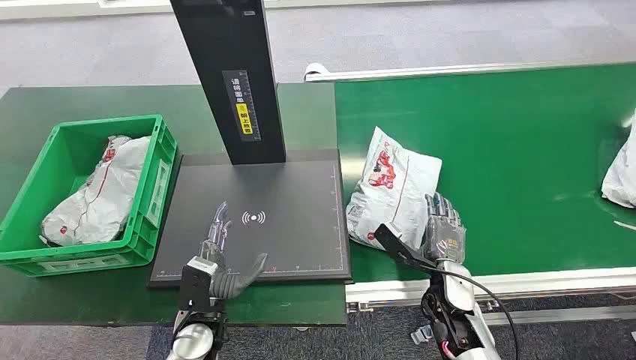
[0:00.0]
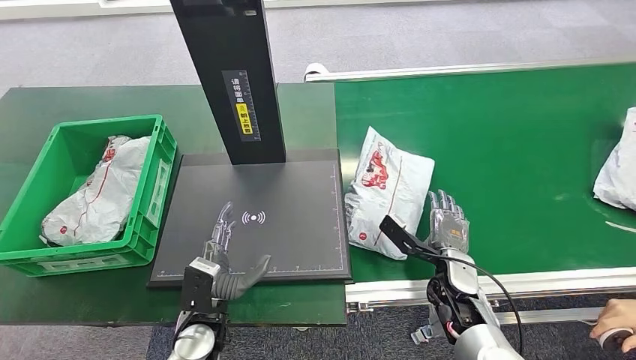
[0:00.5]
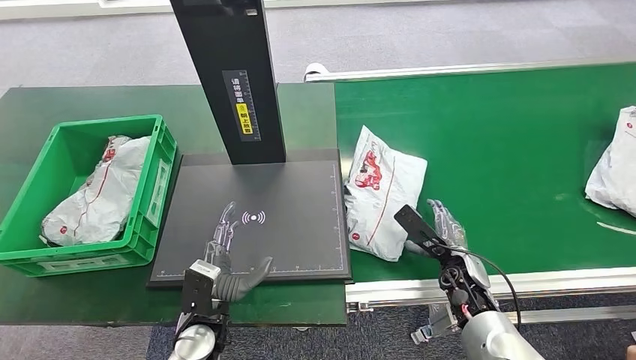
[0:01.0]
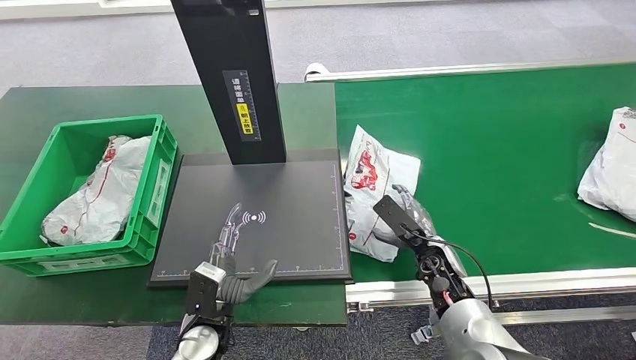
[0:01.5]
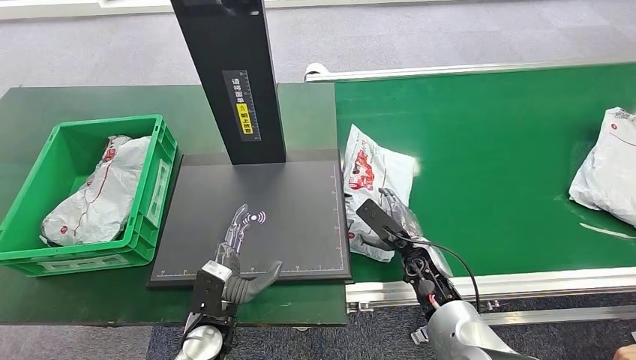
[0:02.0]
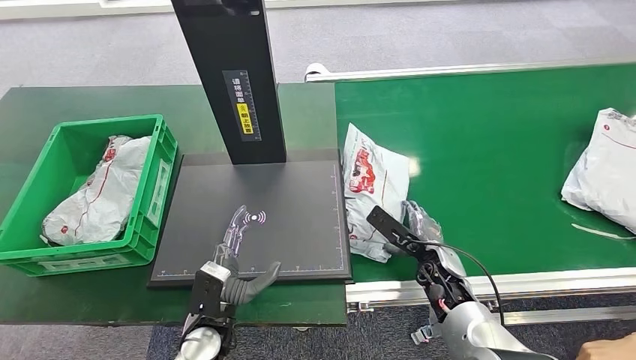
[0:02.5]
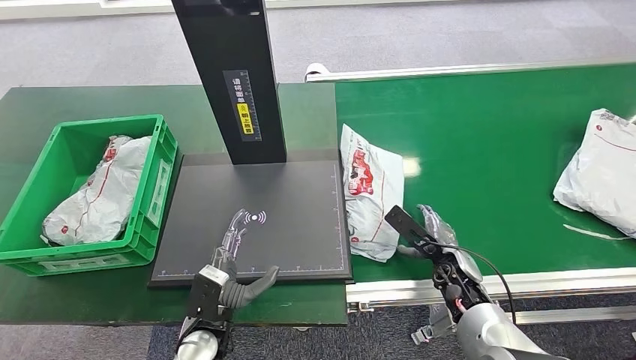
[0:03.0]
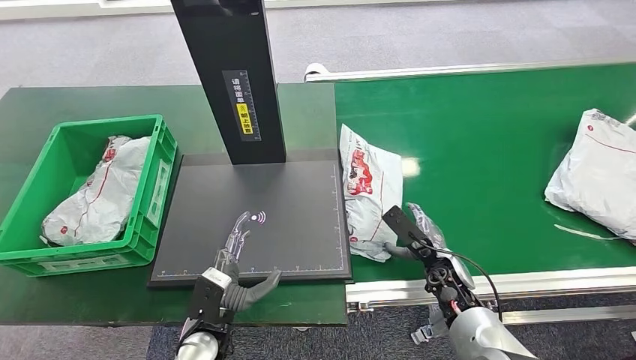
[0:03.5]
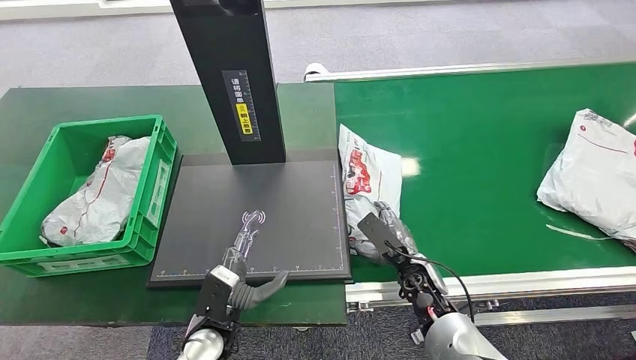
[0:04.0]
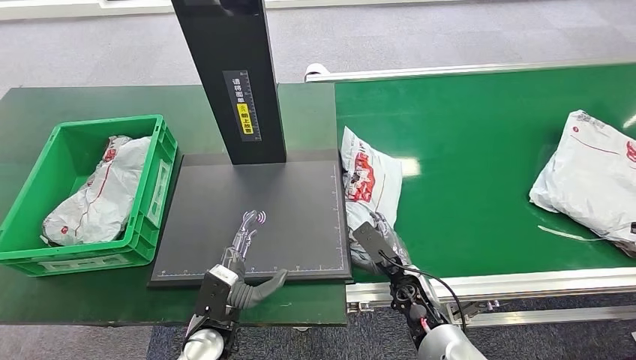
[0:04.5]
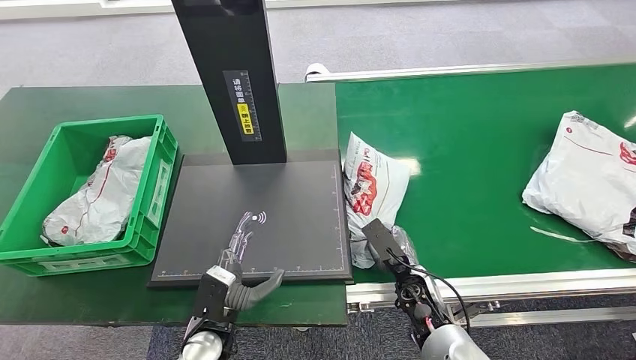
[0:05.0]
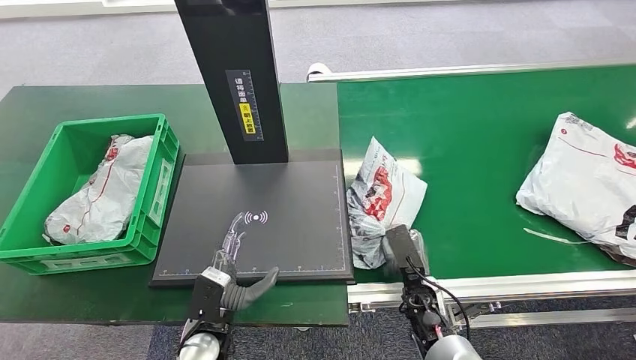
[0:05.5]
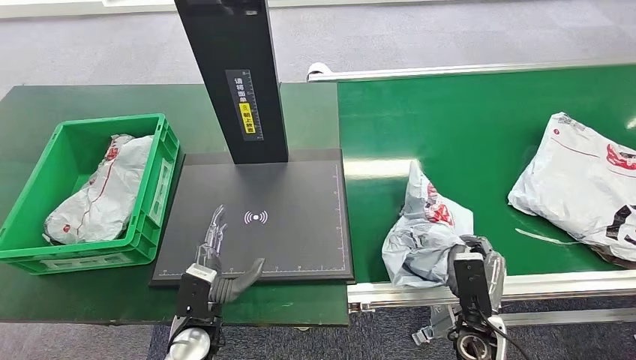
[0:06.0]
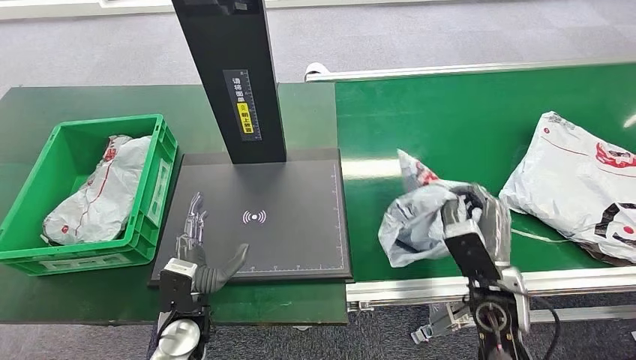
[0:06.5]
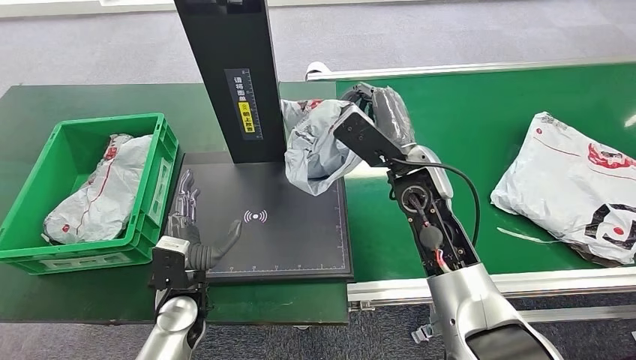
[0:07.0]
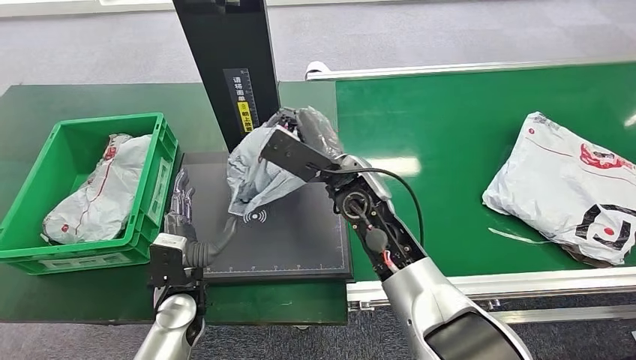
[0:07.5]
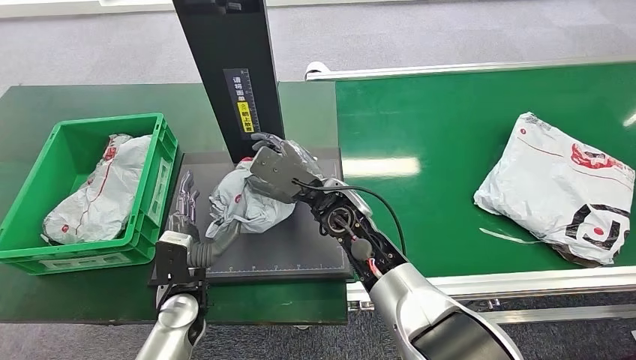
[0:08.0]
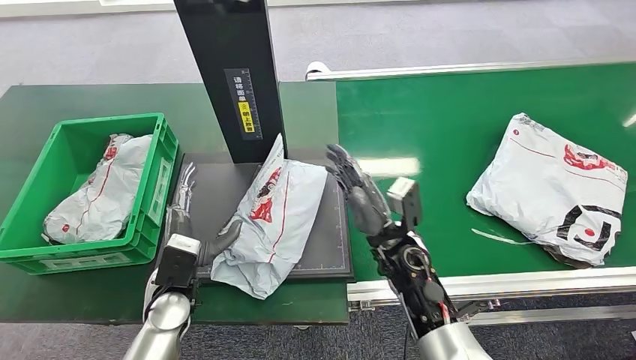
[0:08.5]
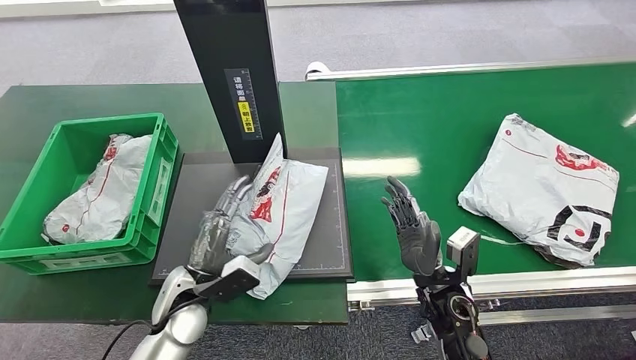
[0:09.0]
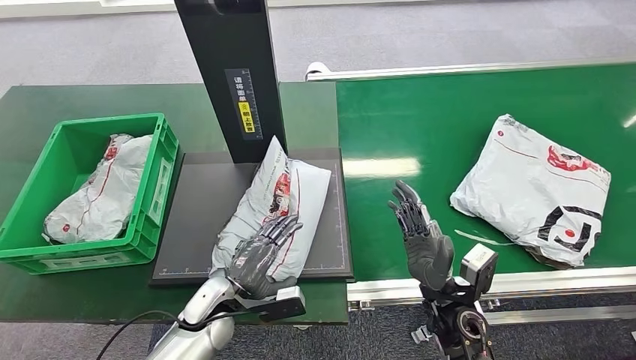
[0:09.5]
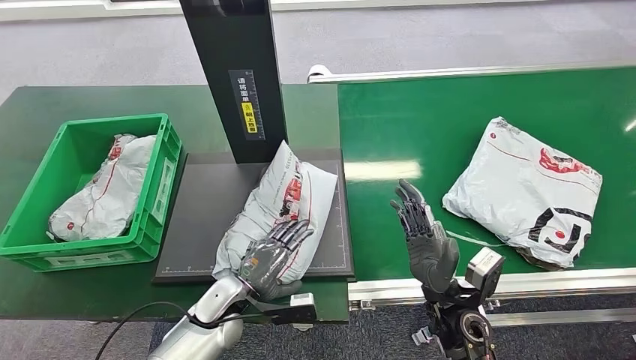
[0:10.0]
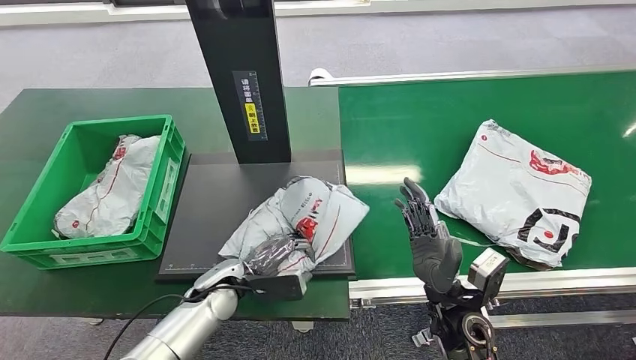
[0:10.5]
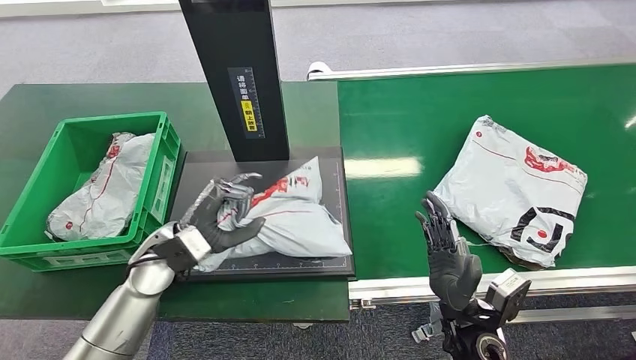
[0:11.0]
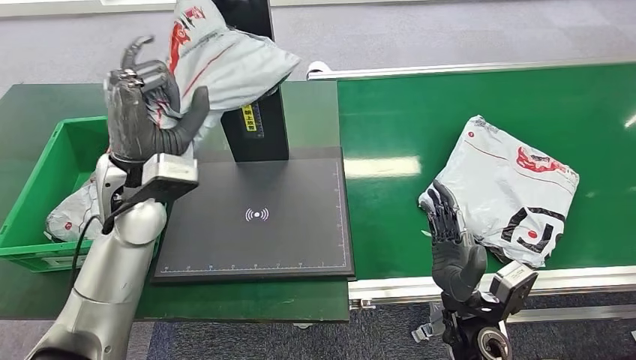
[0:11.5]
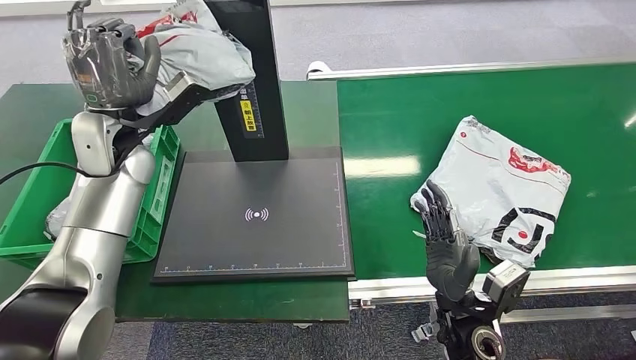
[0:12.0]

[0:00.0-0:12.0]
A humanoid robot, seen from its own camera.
Step, 0:00.0 to 0:06.5: Pick up the package from the conveyor belt.
Step, 0:07.0 to 0:08.5: Place the package onto the inbound machine.
Step, 0:09.0 to 0:11.5: Pick up the package from the inbound machine.

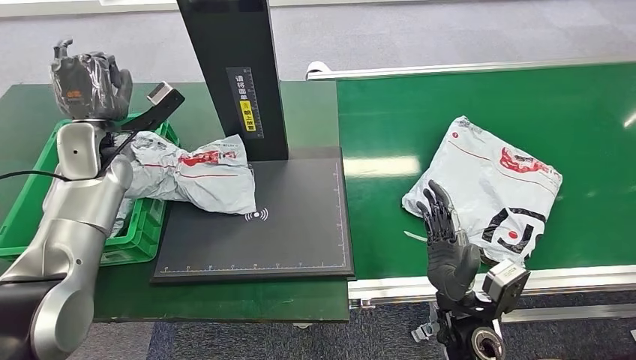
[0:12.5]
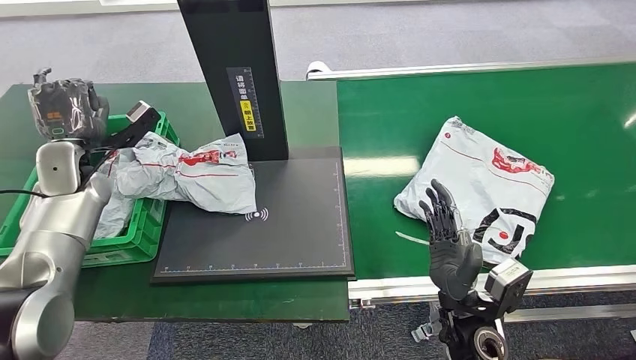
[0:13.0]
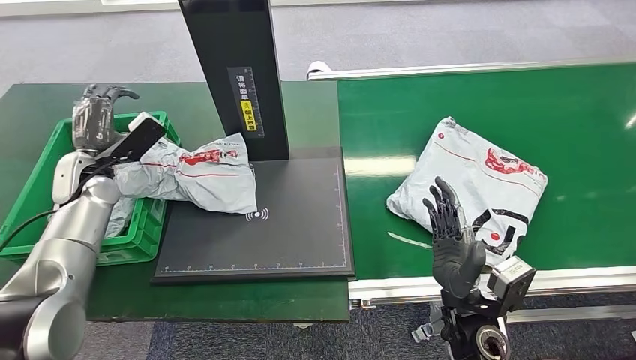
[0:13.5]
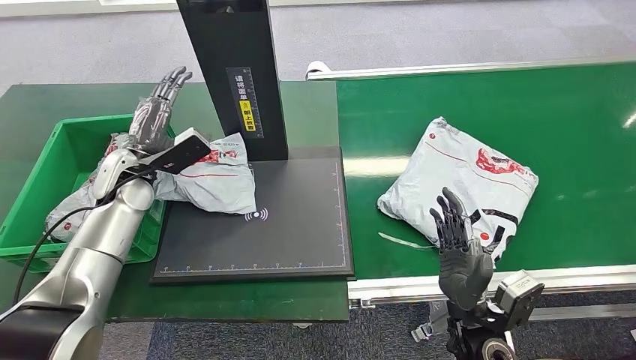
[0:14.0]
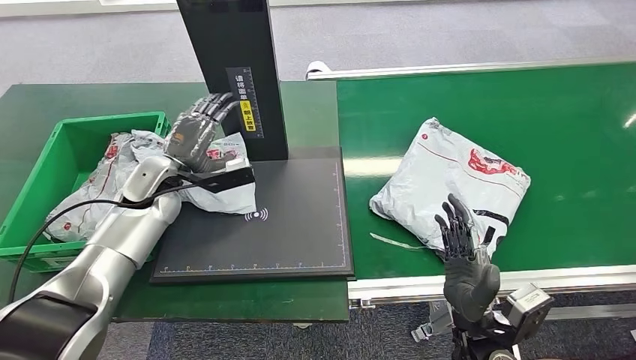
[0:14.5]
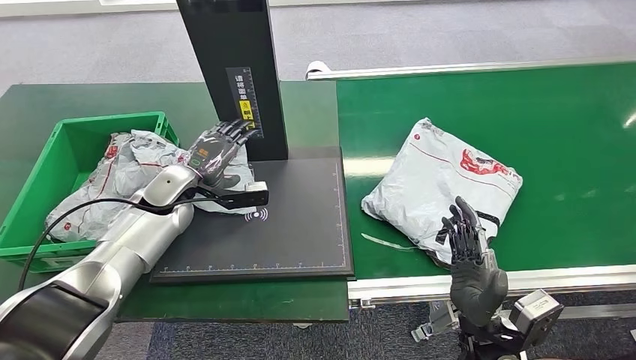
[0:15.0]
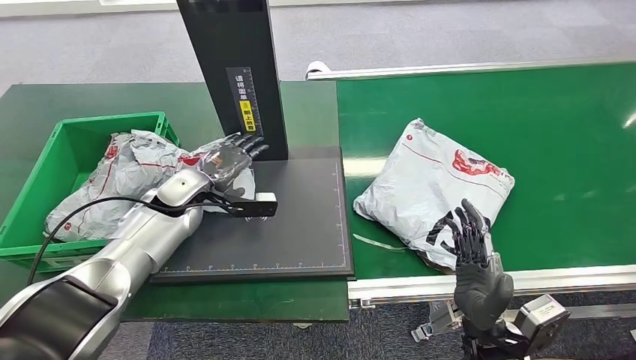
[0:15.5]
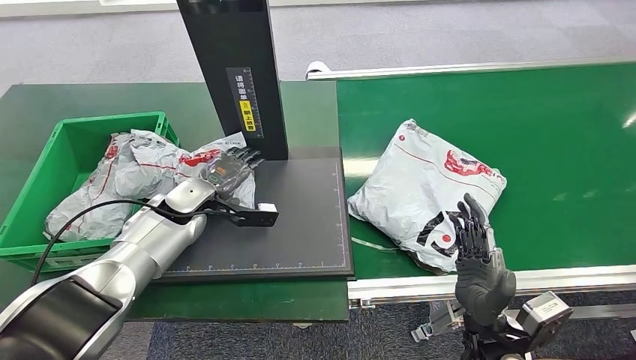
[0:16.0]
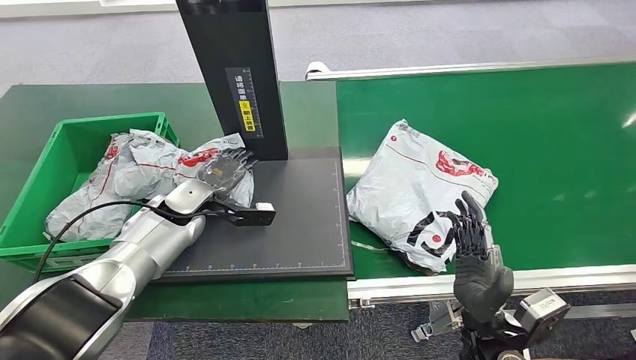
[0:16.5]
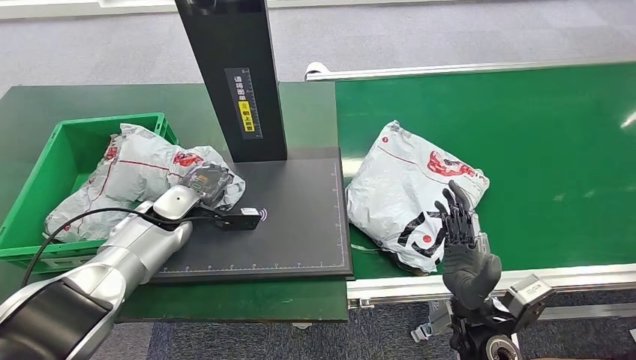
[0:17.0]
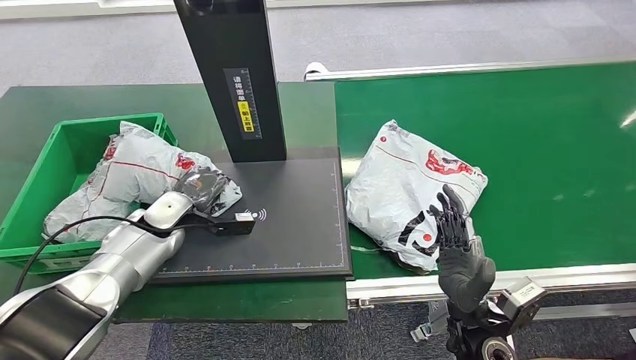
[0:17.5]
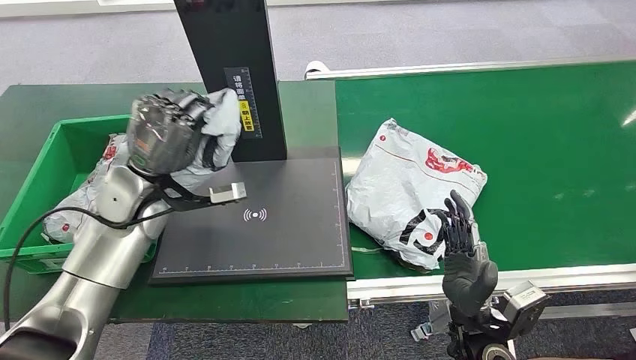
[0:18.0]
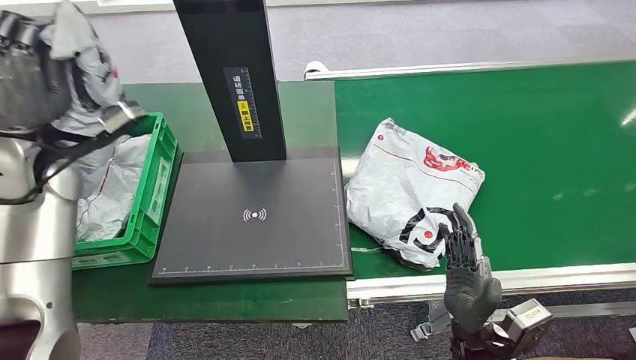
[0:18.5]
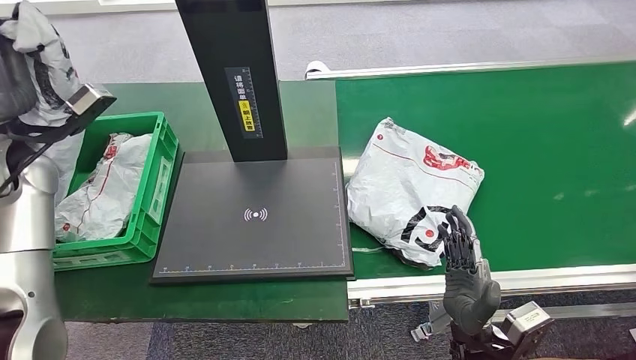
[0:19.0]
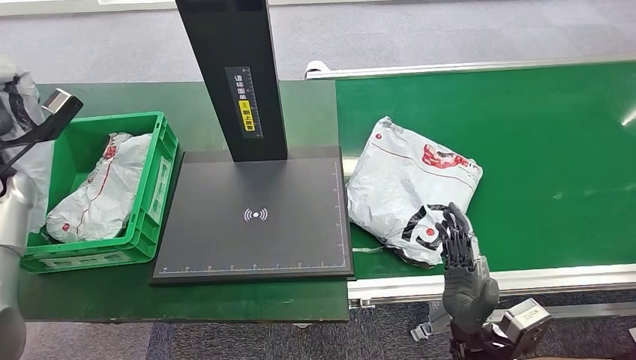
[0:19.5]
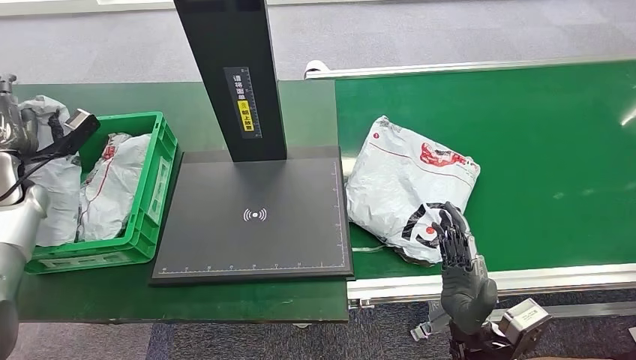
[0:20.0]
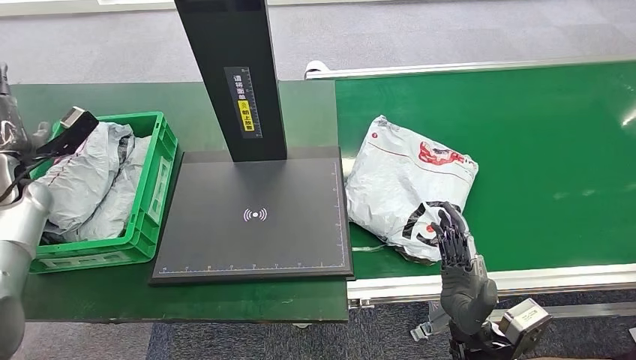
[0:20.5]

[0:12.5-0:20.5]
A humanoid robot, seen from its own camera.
Step, 0:12.5 to 0:20.5: Place the package into the parcel locker.
0:14.5 to 0:16.5: The left hand goes roughly 5 cm downward.
0:18.5 to 0:20.5: The left hand shifts roughly 15 cm to the left and downward.
